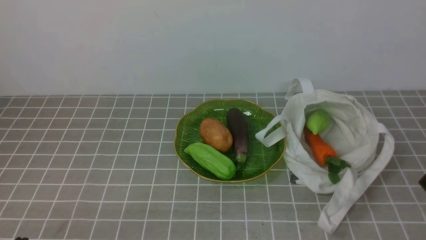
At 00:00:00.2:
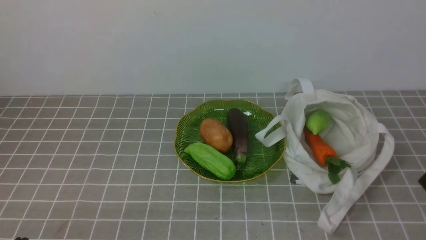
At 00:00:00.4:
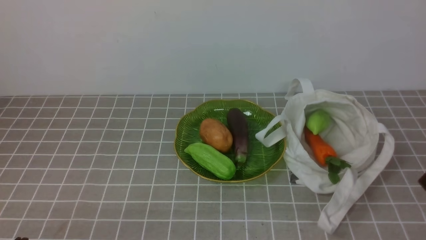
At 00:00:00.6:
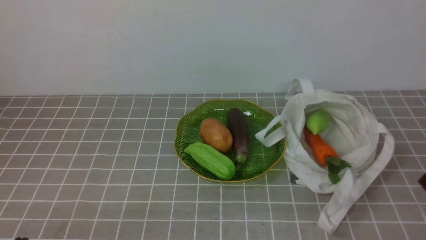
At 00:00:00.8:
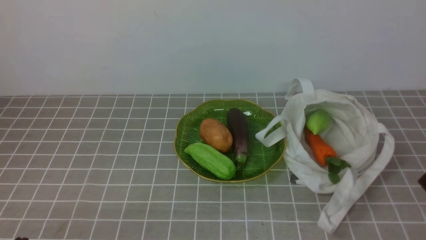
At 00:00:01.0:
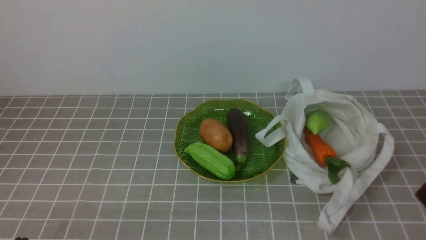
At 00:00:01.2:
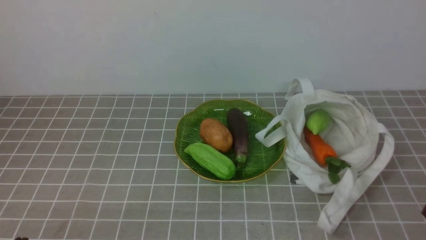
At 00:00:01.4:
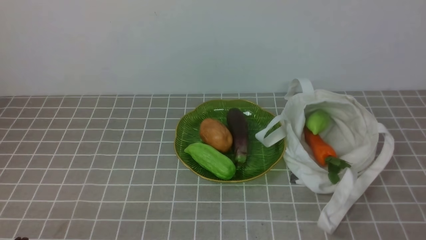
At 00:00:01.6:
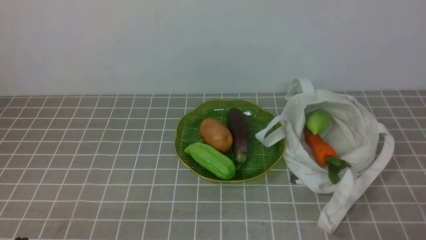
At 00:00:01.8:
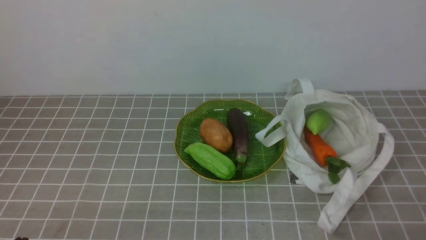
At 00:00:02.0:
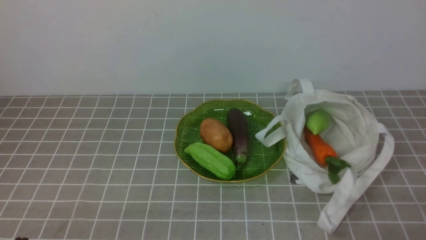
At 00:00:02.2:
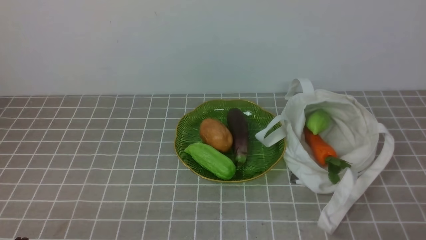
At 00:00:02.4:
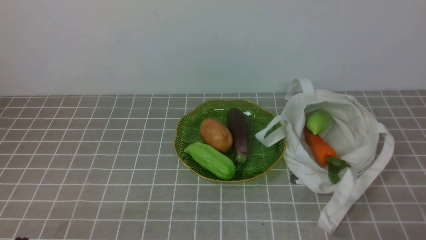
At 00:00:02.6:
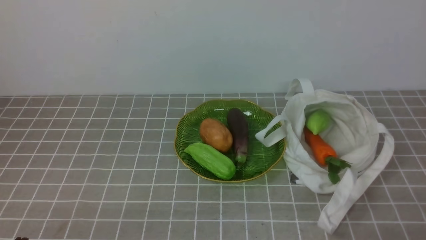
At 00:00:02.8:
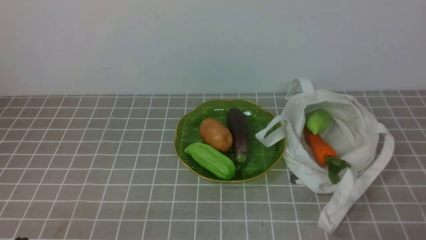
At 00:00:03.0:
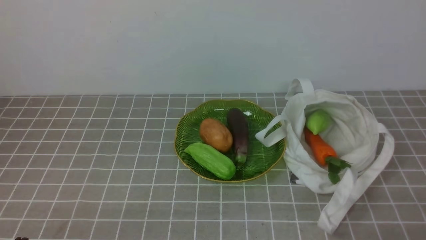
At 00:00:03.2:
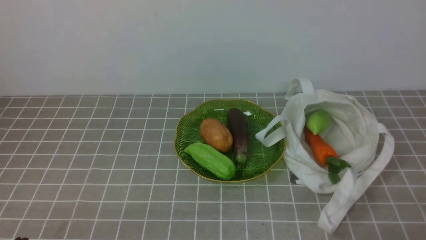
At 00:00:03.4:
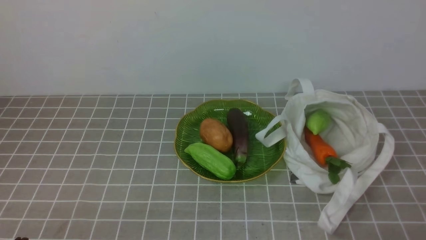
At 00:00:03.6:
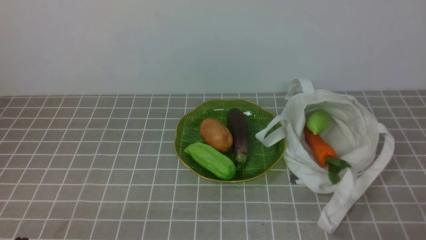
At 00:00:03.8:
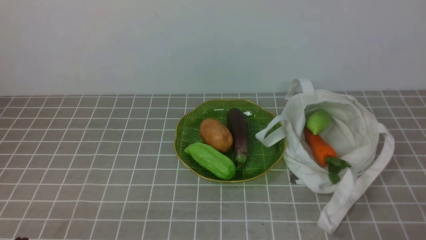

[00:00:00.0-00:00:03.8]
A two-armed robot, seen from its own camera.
Task of the whole recording: take vegetables from bag on grey coffee tablecloth place on plate.
00:00:02.6 to 00:00:03.8: The two grippers keep their place.
